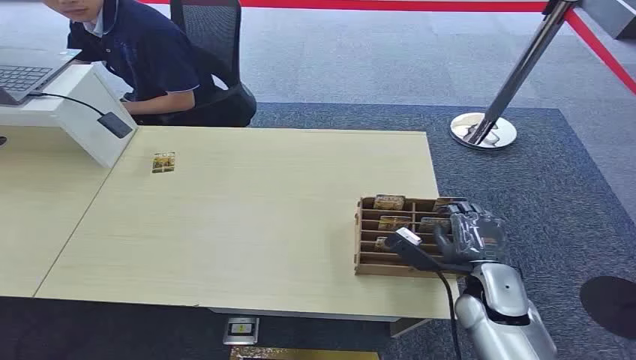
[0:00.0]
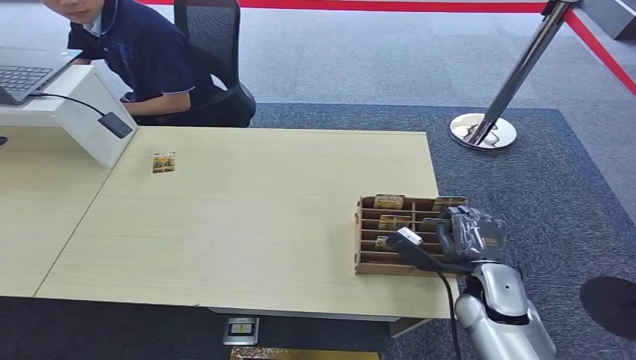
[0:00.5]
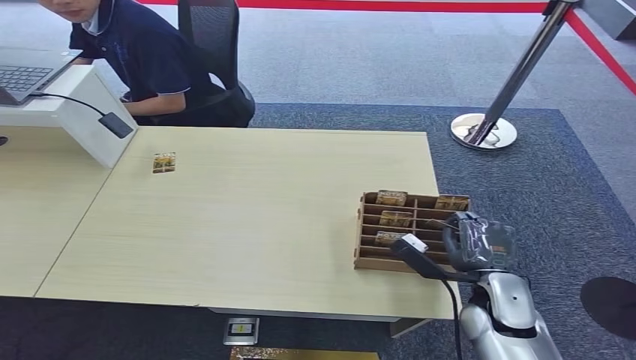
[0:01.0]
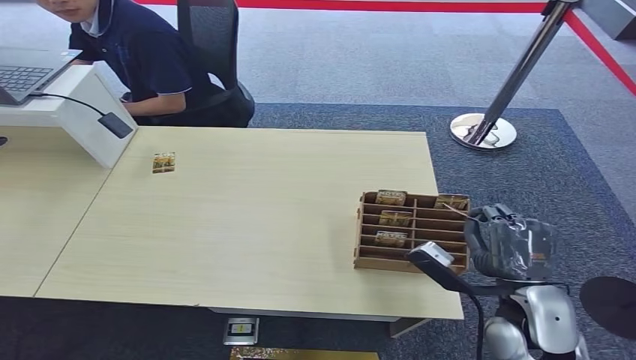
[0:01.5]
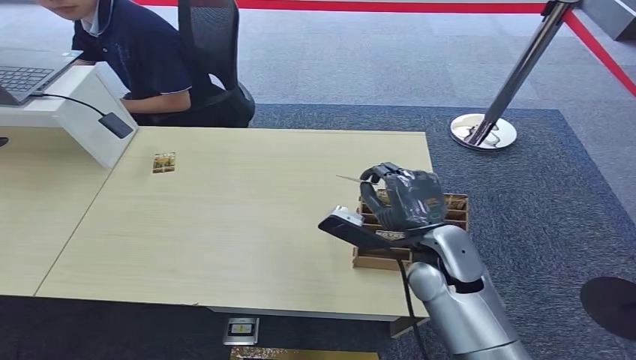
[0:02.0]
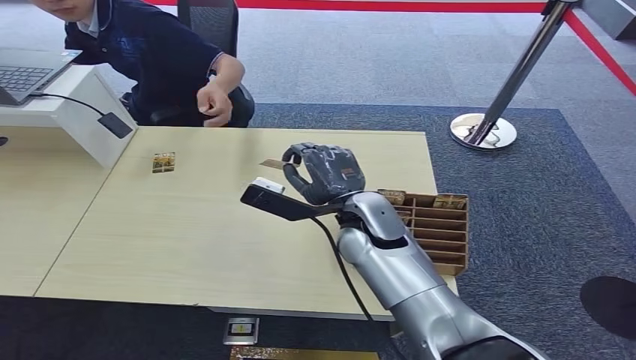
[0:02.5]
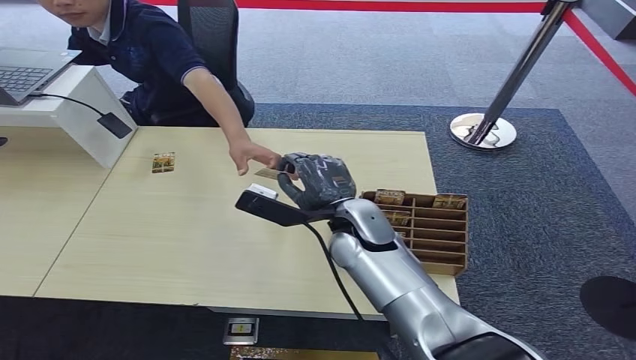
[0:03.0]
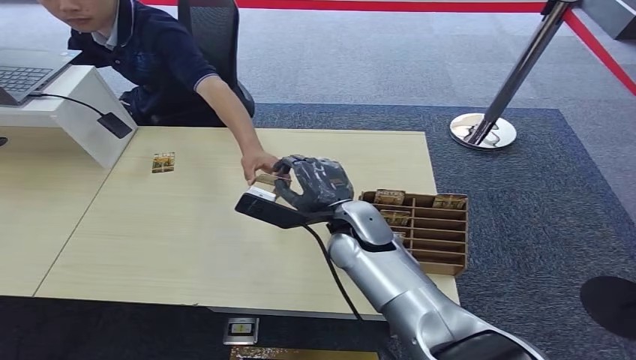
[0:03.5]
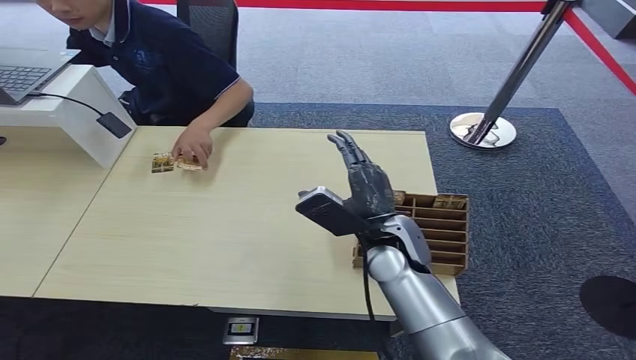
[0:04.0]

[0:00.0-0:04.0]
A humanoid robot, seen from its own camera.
Step, 0:00.0 to 0:02.0: Pick up the key card from the card box.
Step, 0:02.5 to 0:04.0: Hand the key card to the target.
0:02.0 to 0:04.0: The right hand heads to the left, covering roughly 5 cm.
